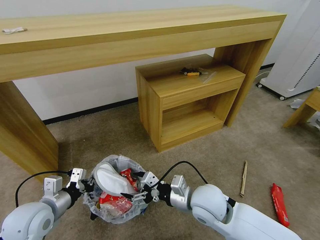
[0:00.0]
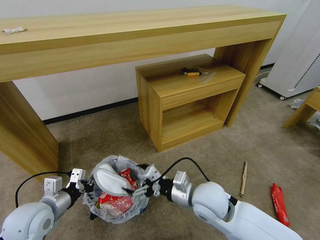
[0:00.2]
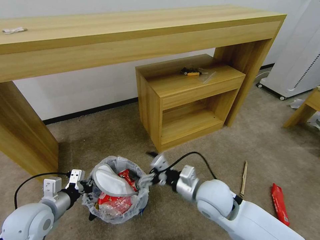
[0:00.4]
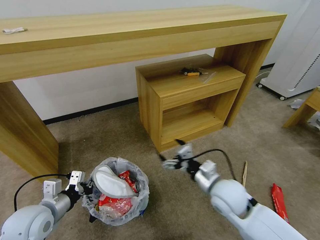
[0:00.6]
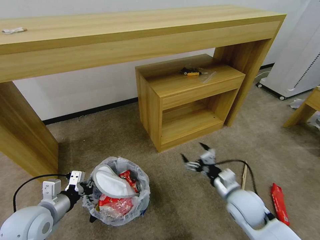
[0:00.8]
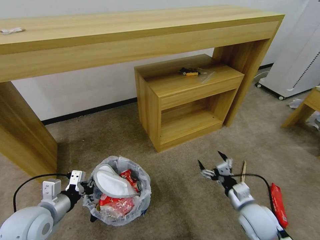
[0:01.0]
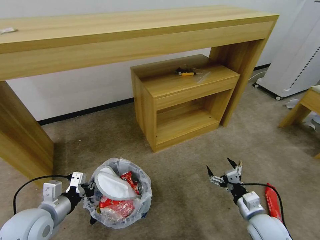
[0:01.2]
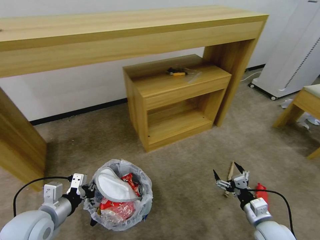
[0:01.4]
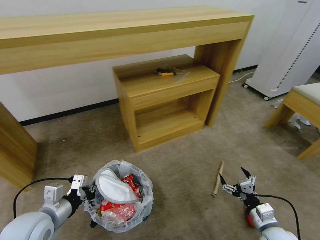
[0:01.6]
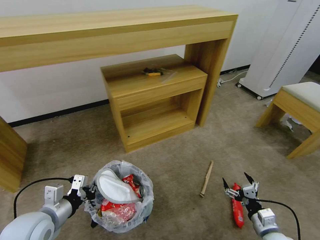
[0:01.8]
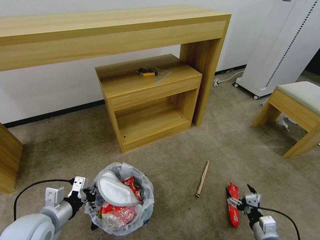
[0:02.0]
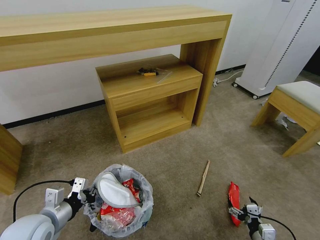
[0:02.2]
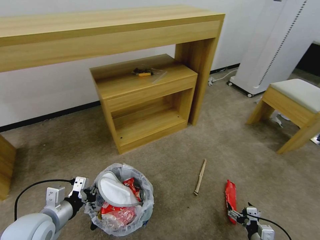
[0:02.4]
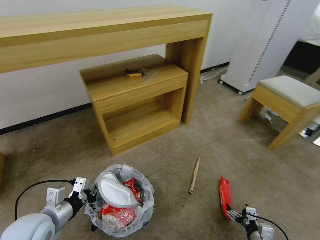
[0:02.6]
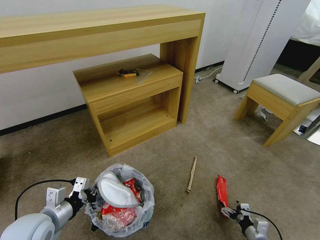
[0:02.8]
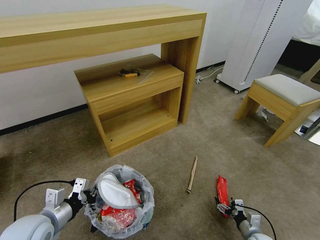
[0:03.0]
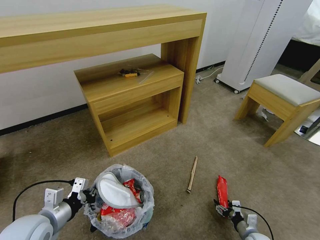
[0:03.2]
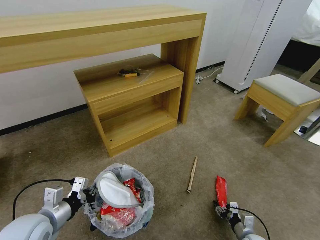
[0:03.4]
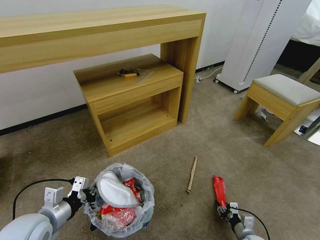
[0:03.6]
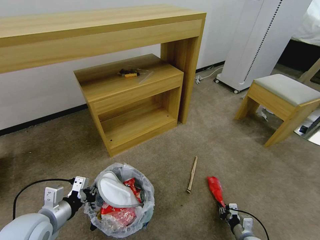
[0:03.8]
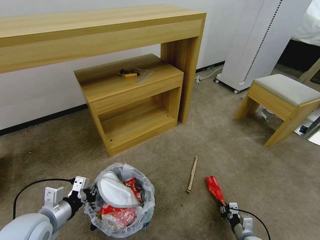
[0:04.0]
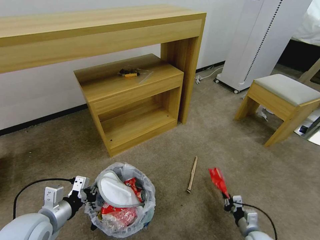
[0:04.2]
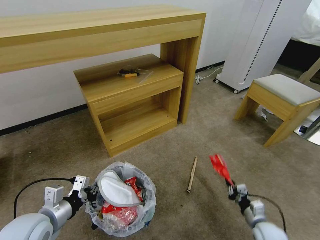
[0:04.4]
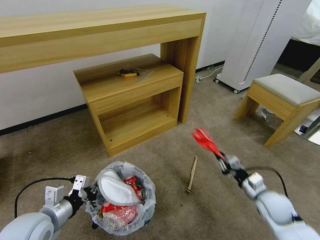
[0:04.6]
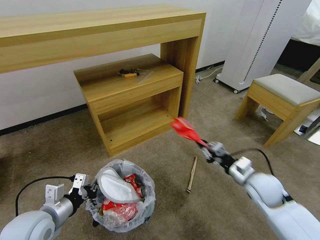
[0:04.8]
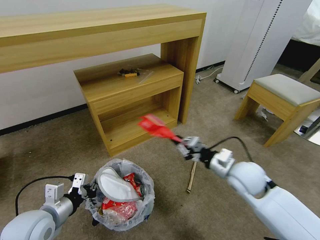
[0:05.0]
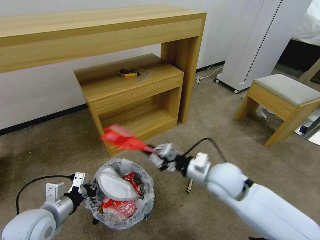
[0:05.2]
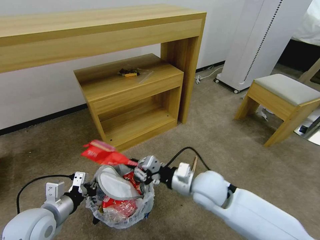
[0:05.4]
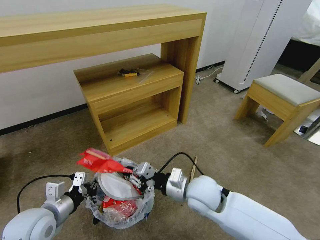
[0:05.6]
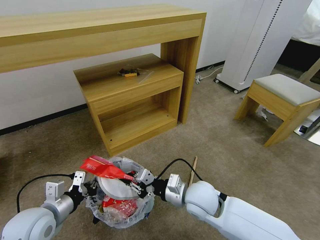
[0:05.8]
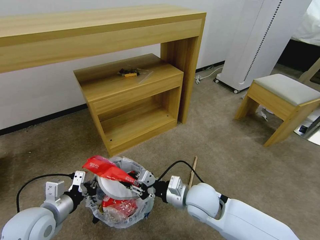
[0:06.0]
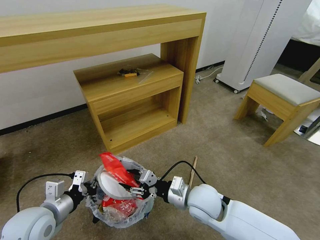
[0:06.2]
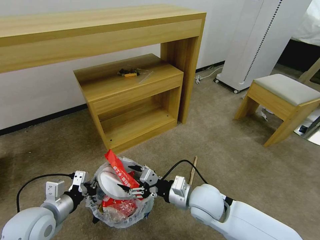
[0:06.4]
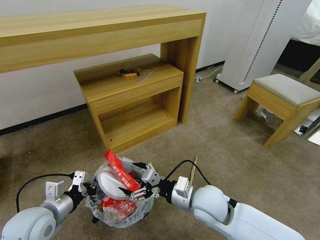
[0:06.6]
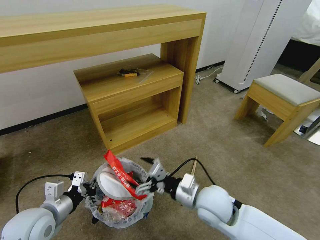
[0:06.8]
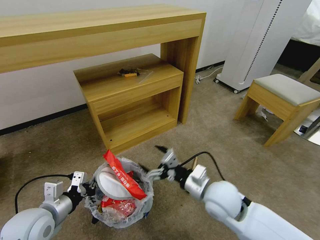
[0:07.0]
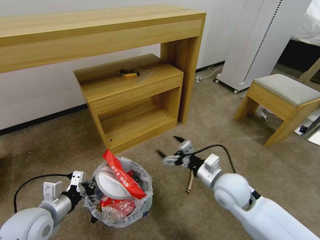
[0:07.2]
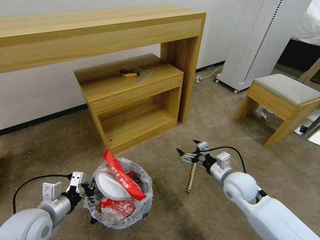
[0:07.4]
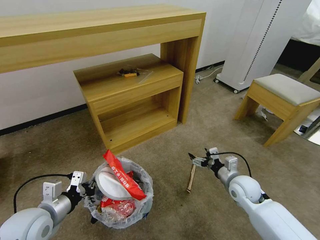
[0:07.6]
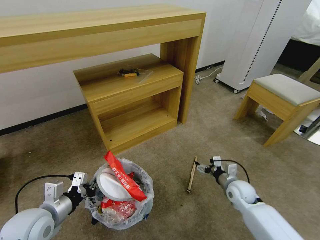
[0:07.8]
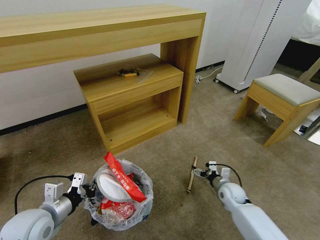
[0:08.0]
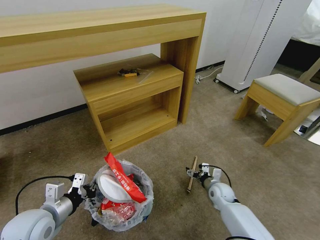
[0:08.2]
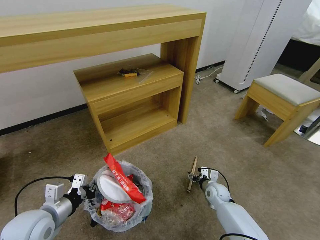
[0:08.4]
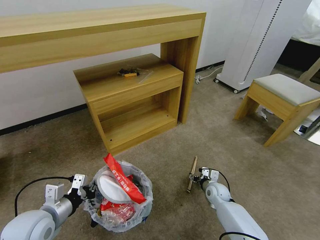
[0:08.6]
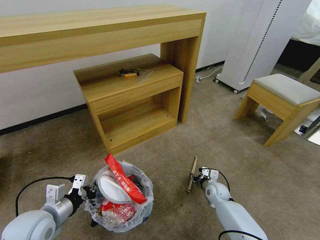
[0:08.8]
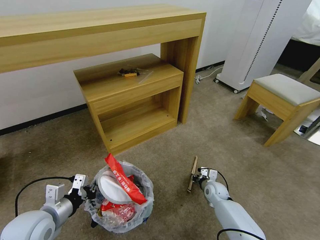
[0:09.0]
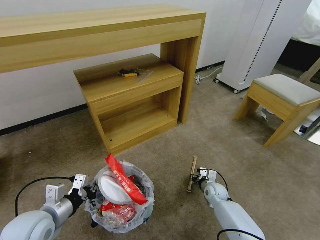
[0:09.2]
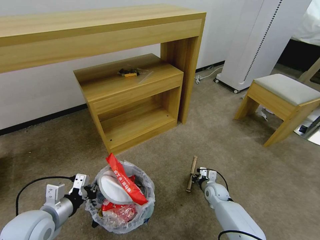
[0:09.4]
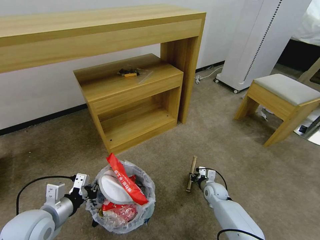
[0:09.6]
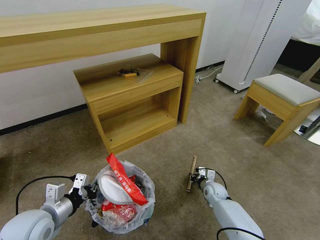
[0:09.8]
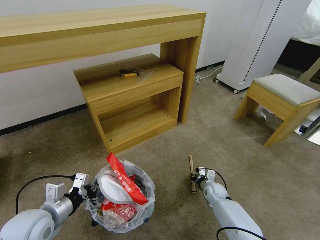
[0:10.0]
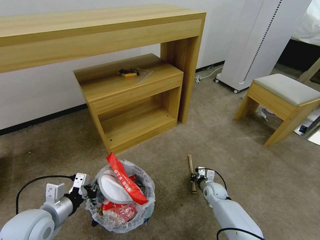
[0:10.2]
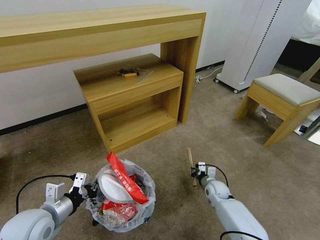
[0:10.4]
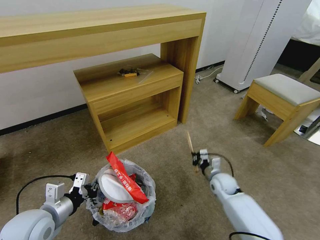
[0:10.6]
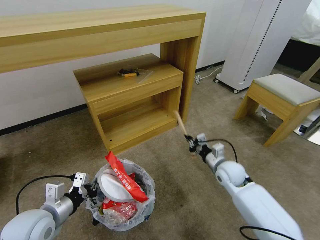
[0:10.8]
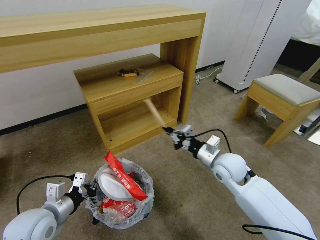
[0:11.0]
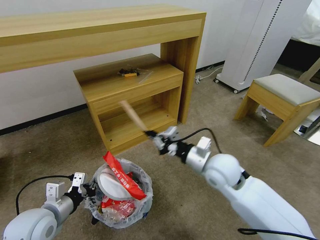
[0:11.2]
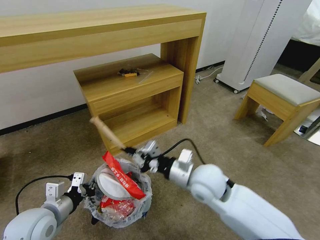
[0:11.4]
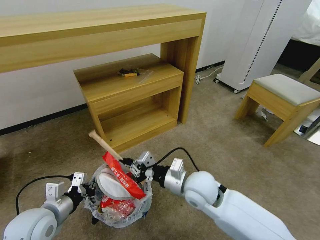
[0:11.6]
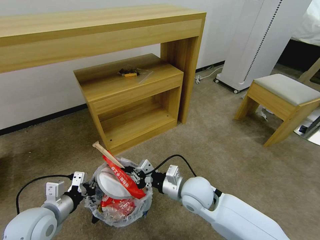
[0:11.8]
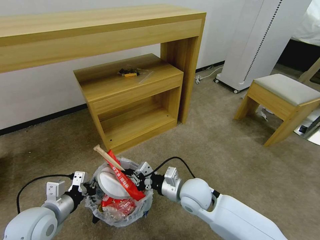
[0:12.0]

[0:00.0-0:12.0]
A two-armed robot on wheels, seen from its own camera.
Task of the whole recording: Pick up the trash bin and place the garbage on the floor into it.
0:00.0 to 0:01.6: The right gripper travels to the right and downward by about 25 cm.
0:01.6 to 0:03.0: The right gripper goes approximately 15 cm downward.
0:03.0 to 0:04.4: The right gripper travels upward by about 5 cm, and closes up.
0:04.4 to 0:06.0: The right gripper travels to the left and upward by some 30 cm.
0:06.0 to 0:07.6: The right gripper moves to the right, about 20 cm, and opens up.
0:07.6 to 0:09.0: The right gripper travels downward by about 15 cm, and closes its fingers.
0:09.0 to 0:10.4: The grippers make only small movements.
0:10.4 to 0:12.0: The right gripper is displaced upward, to the left and backward by some 25 cm.

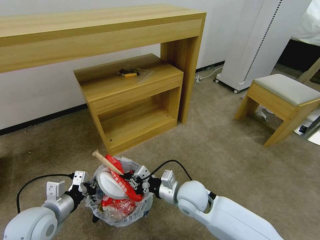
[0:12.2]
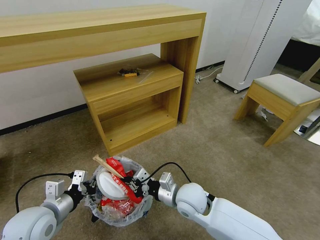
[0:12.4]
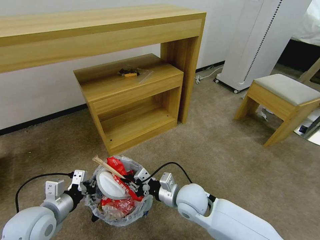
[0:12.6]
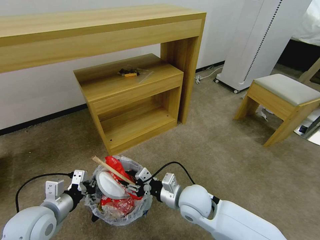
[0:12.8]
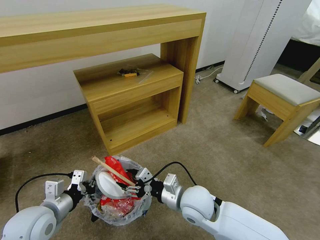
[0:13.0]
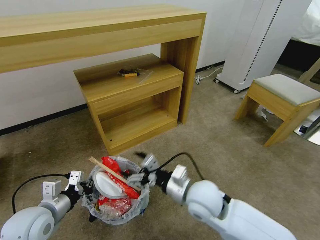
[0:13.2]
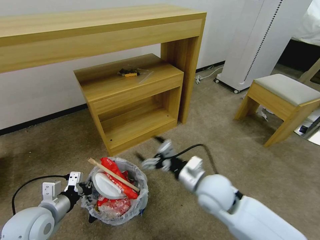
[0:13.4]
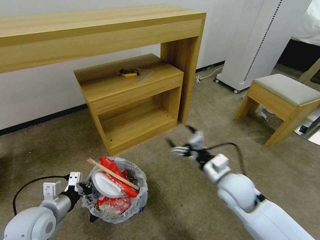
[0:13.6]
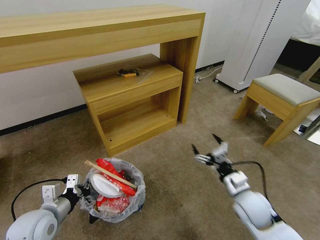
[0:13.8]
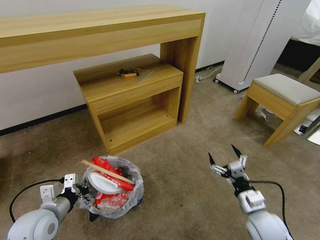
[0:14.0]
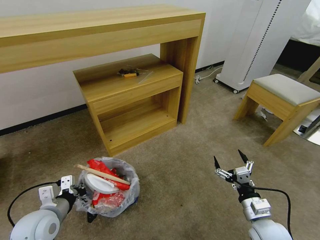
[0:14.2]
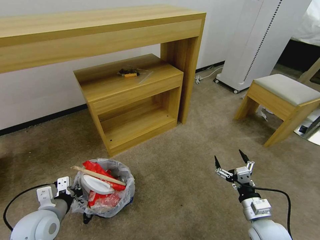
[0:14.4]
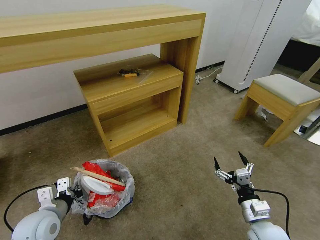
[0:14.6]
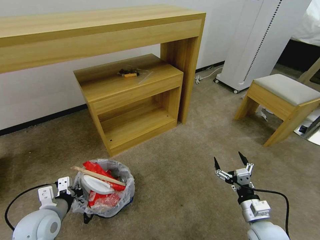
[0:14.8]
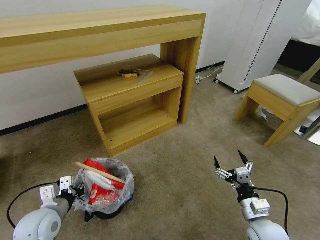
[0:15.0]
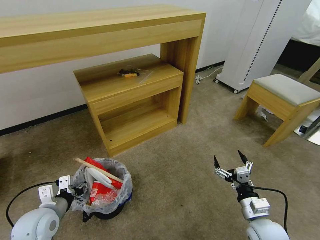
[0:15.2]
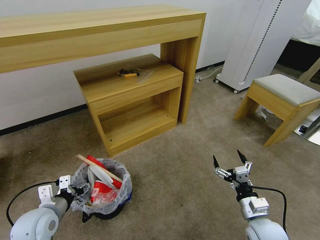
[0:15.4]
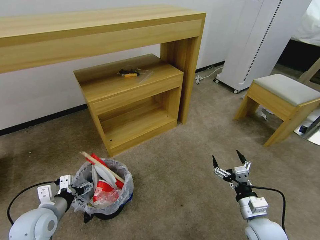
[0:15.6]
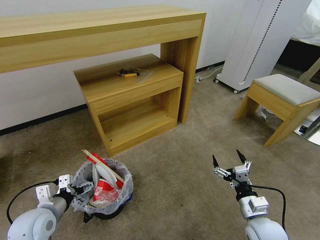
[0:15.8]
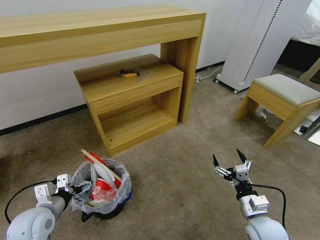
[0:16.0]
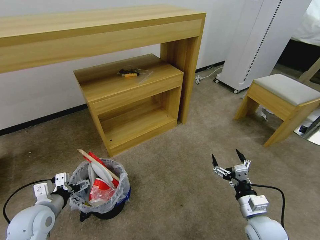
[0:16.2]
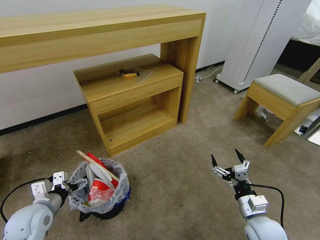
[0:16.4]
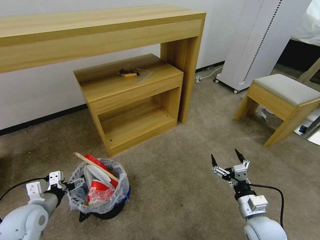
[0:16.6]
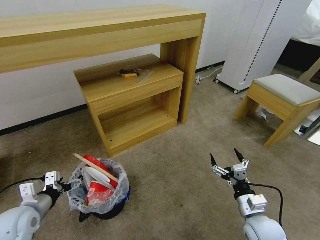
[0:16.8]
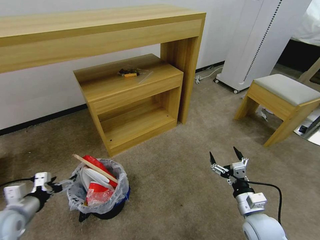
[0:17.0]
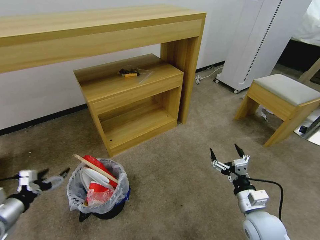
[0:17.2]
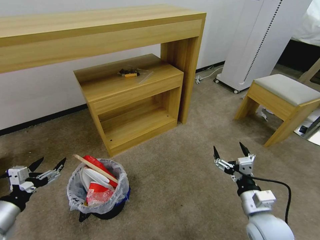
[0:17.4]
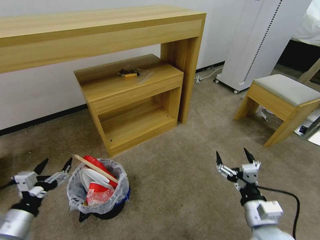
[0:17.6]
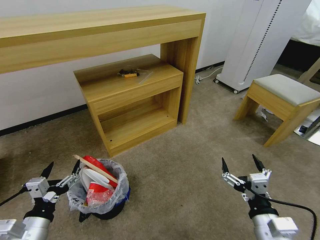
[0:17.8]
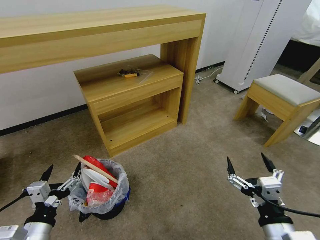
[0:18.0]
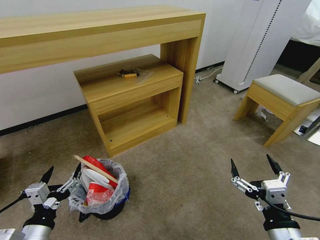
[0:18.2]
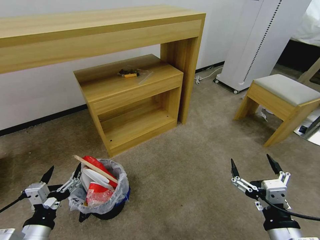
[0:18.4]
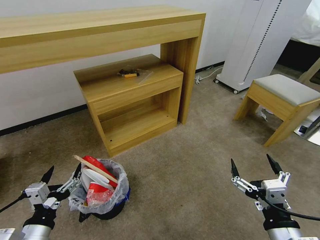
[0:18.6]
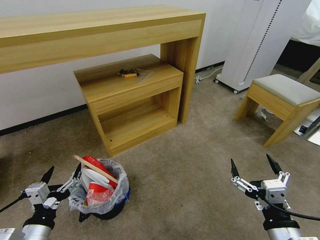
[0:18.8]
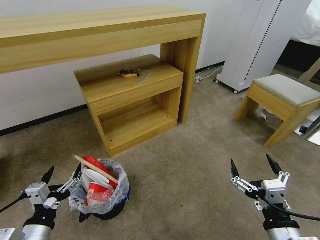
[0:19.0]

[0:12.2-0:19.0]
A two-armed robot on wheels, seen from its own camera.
Task of the whole recording: Pick up the trash bin and place the garbage on the floor into it.
0:12.2 to 0:13.6: The right gripper is displaced to the right by approximately 10 cm, and opens.
0:13.6 to 0:15.0: The right gripper travels backward, downward and to the right by some 15 cm.
0:15.0 to 0:16.2: The left gripper opens its fingers.
0:16.2 to 0:17.6: The right gripper is displaced upward by approximately 5 cm. The left gripper shifts some 10 cm backward, and reaches some 10 cm to the left, then returns.
0:17.6 to 0:19.0: The right gripper travels backward and upward by about 10 cm. Meanwhile the left gripper moves to the right, approximately 5 cm.

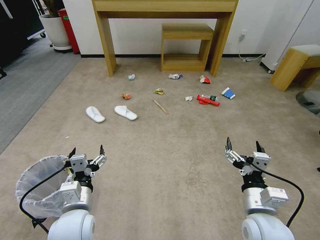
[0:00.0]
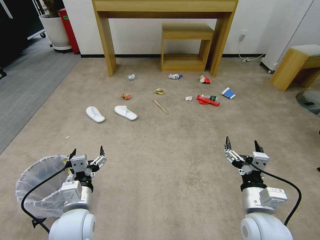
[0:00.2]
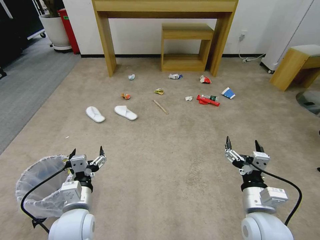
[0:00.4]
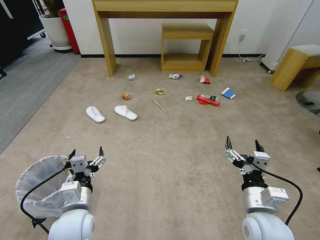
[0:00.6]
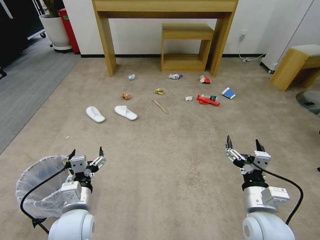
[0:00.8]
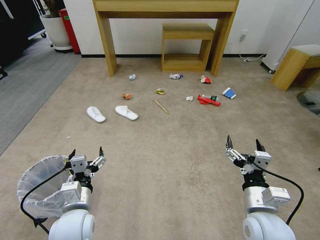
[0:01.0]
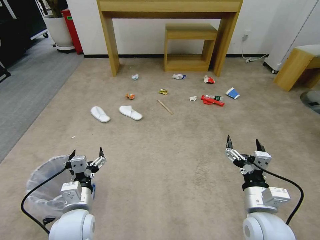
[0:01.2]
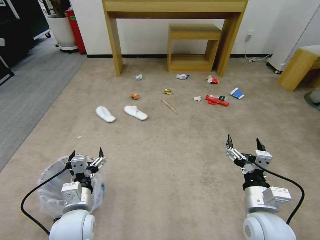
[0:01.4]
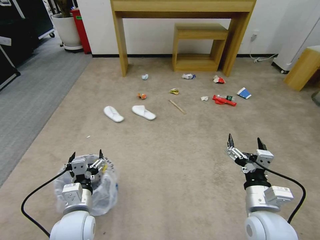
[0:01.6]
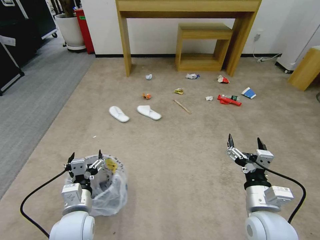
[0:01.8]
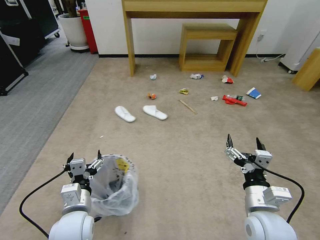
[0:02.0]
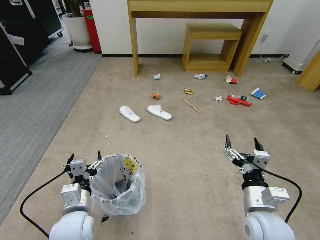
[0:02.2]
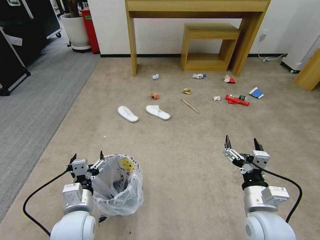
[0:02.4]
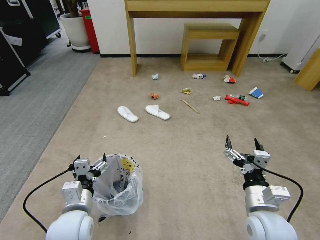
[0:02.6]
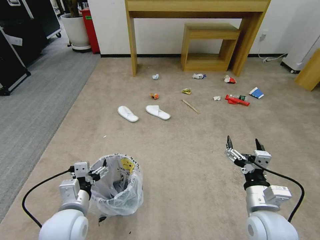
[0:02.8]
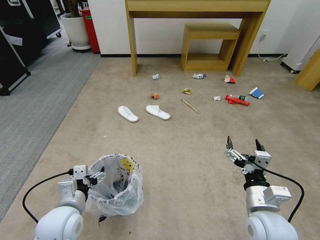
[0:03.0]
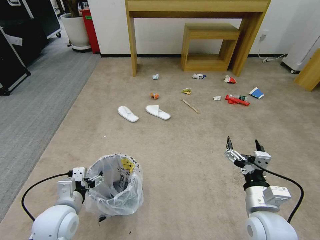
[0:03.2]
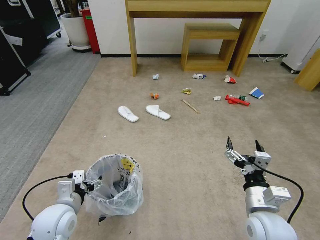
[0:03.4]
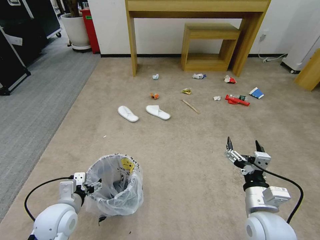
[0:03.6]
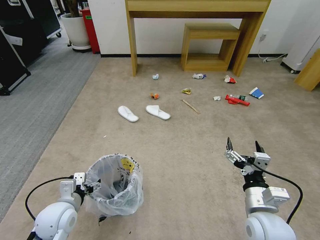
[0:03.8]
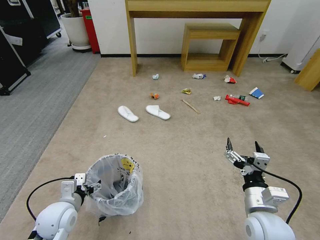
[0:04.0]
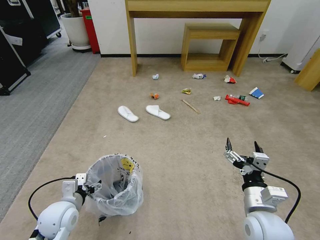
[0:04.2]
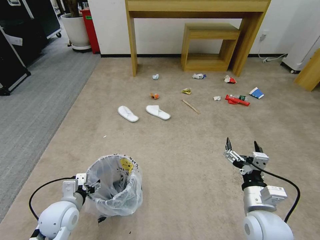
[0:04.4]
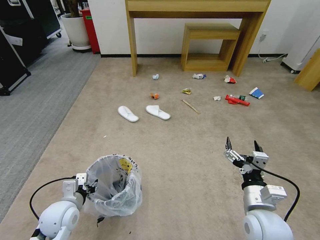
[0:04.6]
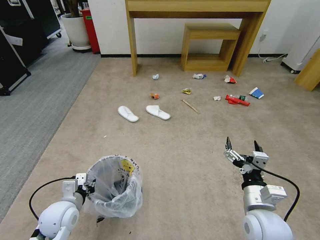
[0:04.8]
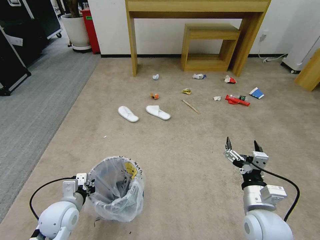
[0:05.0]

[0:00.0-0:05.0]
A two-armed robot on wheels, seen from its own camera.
Task of the whole recording: Pick up the trash bin and place the garbage on the floor into it.
0:01.6 to 0:03.4: The left gripper moves to the left, approximately 5 cm.
0:03.4 to 0:05.0: The left gripper changes place by approximately 5 cm, and closes.
